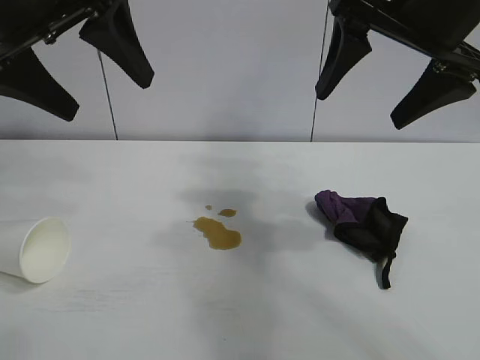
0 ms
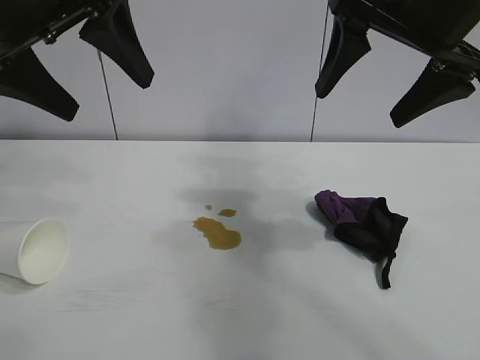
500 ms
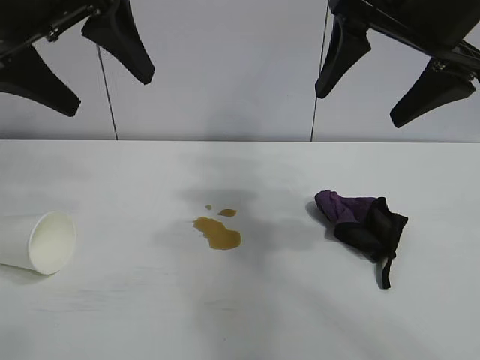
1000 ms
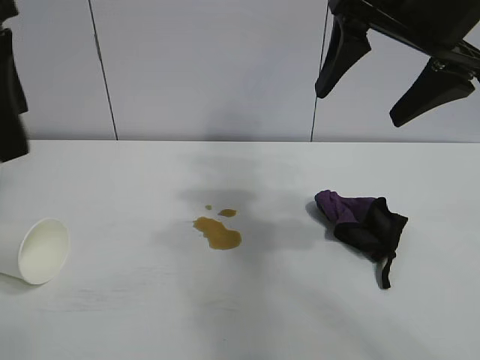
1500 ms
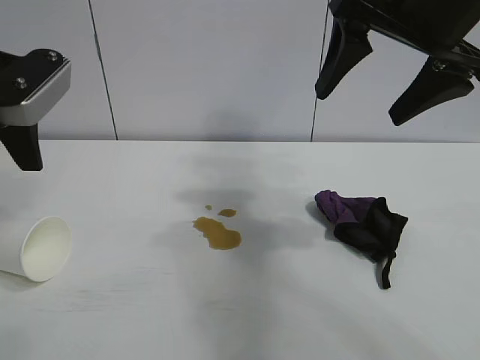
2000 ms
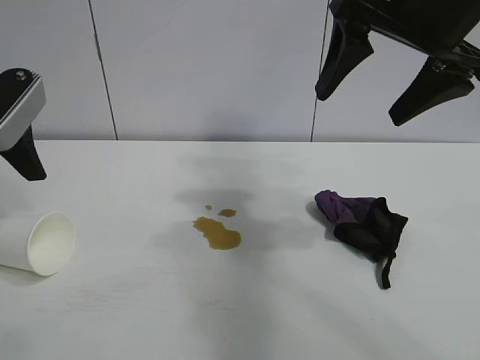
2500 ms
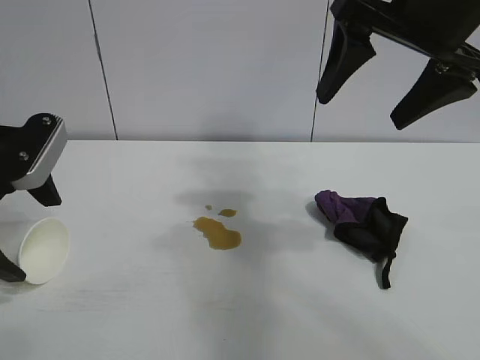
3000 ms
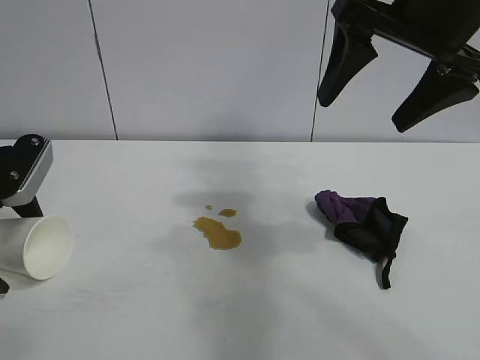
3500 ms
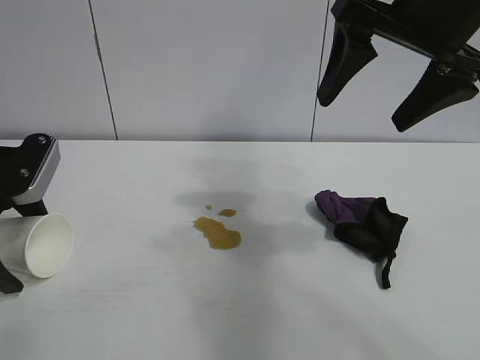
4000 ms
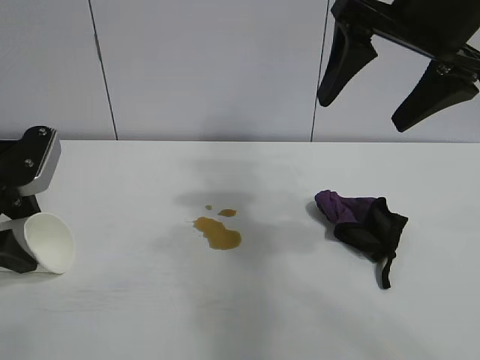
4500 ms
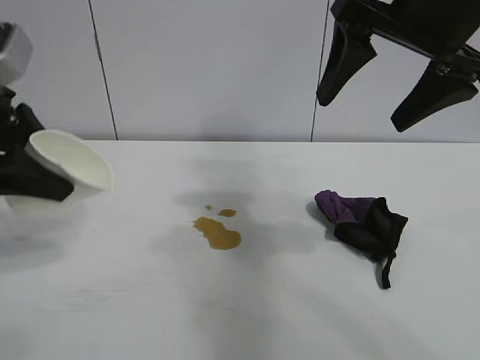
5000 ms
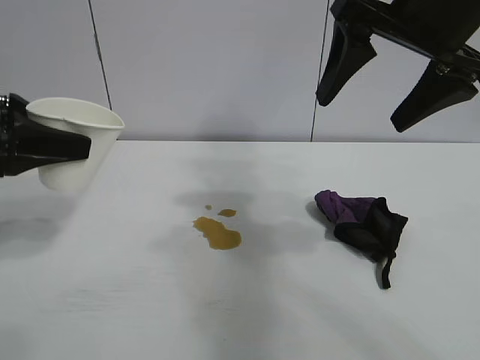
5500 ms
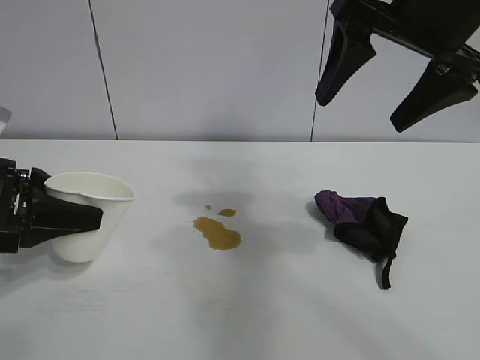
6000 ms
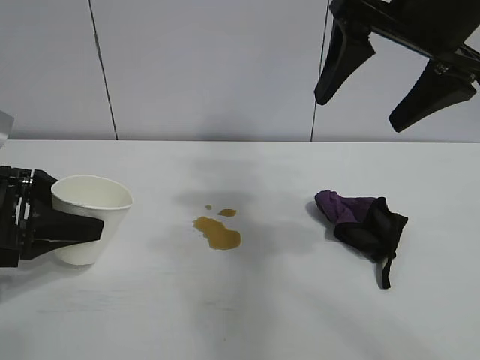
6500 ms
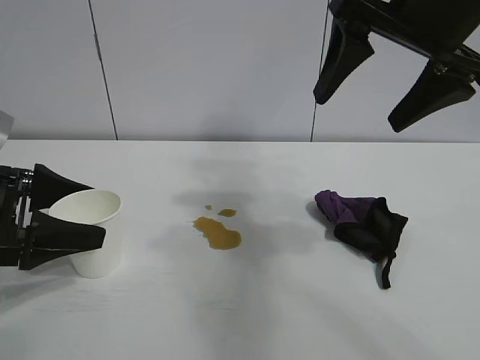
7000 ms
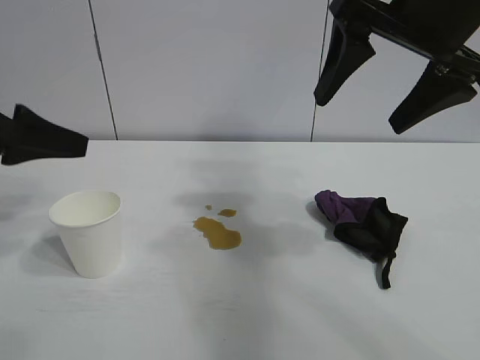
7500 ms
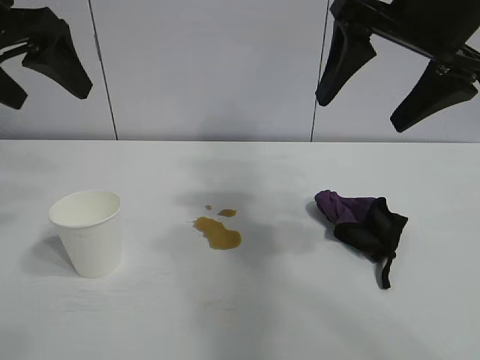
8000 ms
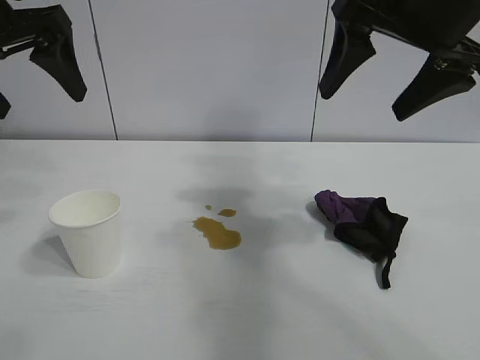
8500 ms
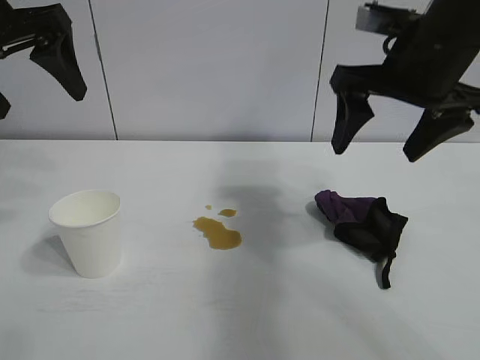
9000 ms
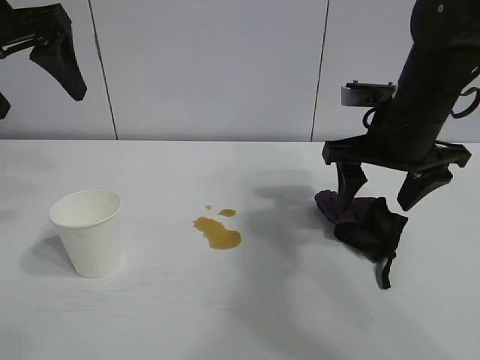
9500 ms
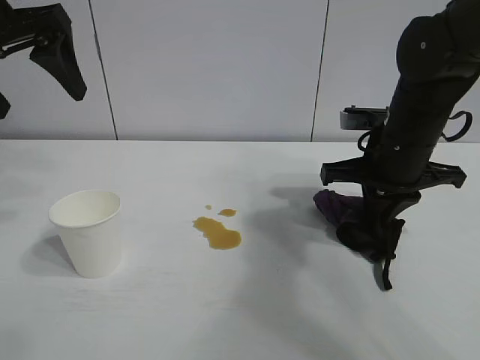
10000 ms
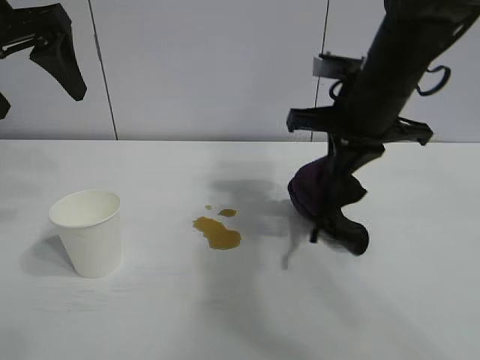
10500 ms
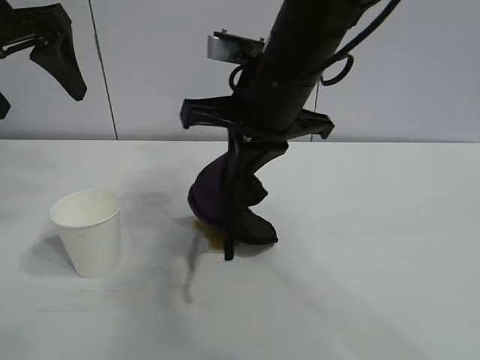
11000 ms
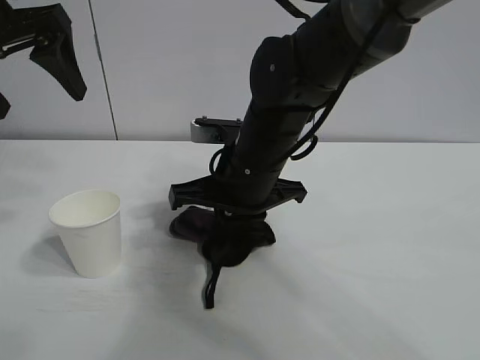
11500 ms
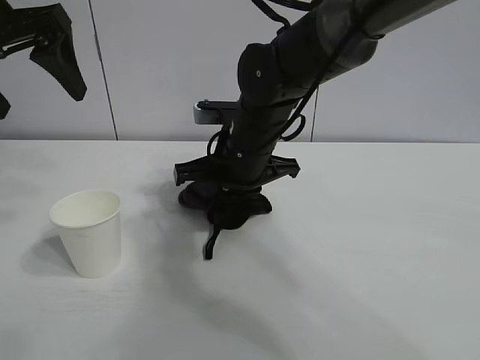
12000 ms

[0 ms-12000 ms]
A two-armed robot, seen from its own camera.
Task of the whole recording: the left gripper pick up the fallen cup and place it upright, the right gripper grasp the black rag and wipe the stain on the table, the right gripper put the black rag back in its original position.
Step, 1000 ms to 4500 ms: Grasp the paper cup with left gripper.
Step, 5000 ms to 6500 ms: Stand the paper cup upright with left gripper.
Step, 7000 ms to 10000 ms: Grasp the rag with right gripper.

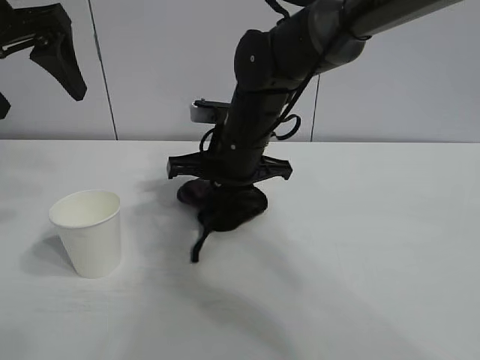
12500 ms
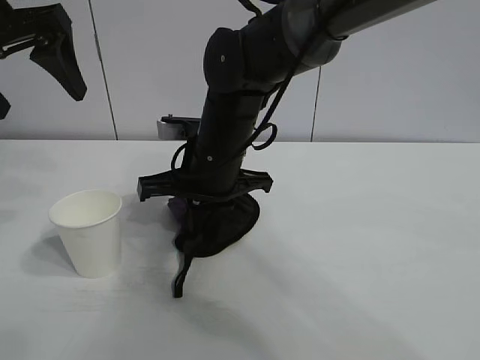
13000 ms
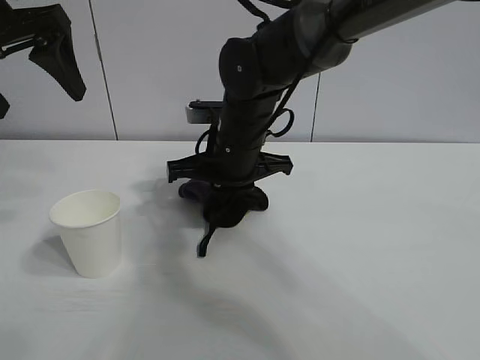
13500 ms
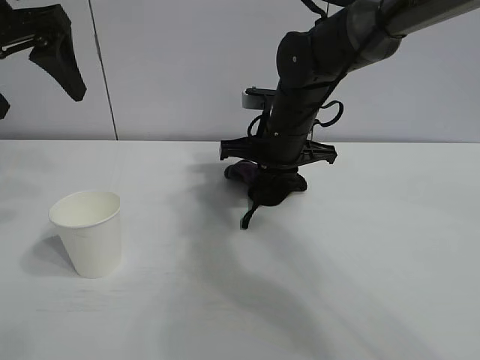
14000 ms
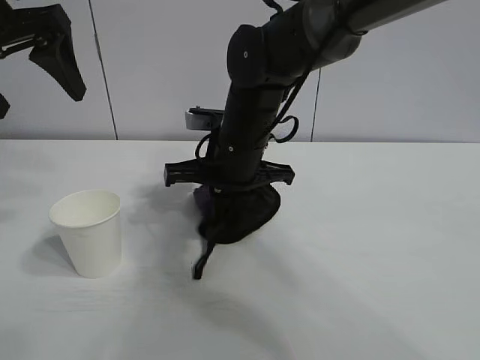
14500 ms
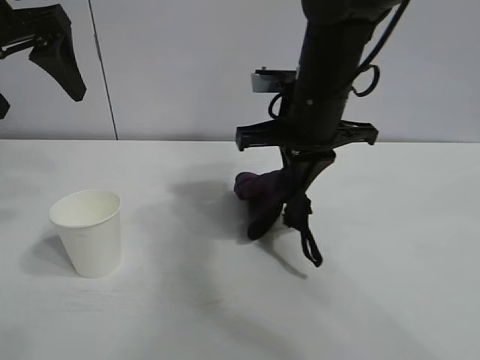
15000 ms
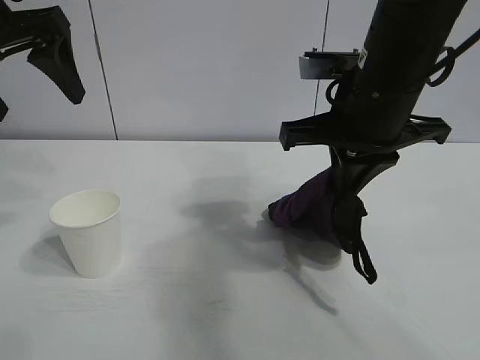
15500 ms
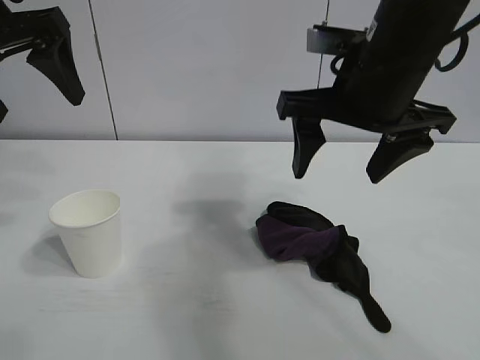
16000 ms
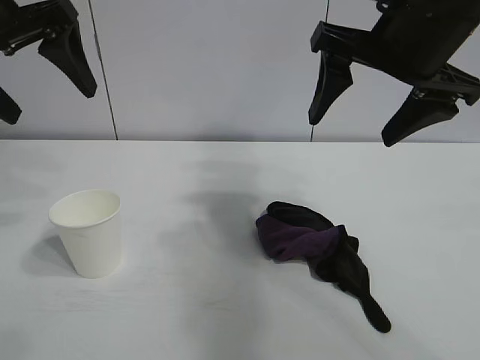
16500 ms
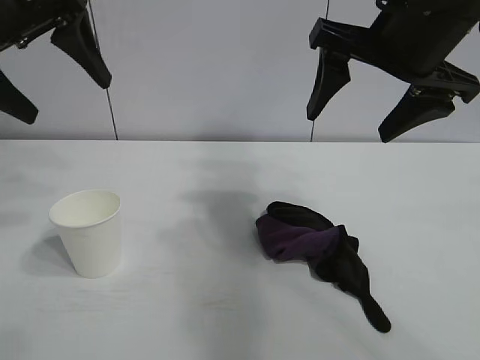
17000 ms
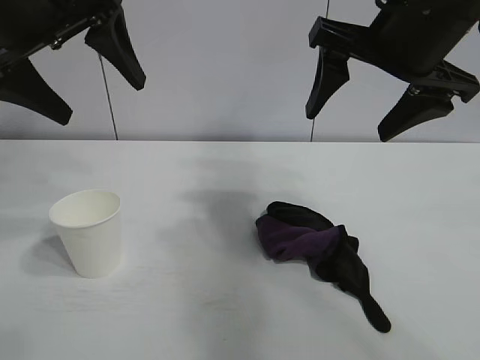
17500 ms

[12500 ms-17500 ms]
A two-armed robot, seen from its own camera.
Task of the whole recording: the left gripper pick up the fallen cup and place it upright, the right gripper grasp the black rag and wipe the stain on the table, the right gripper put the black rag back in its original position.
Step, 15000 ms to 15500 ms: Place the rag on the table with right gripper.

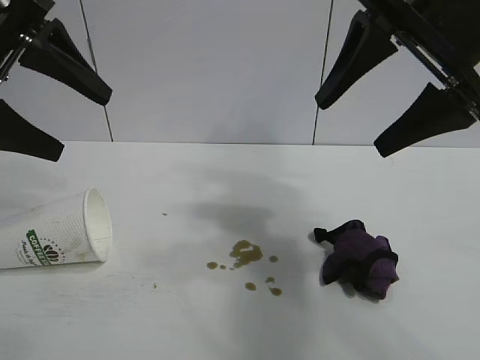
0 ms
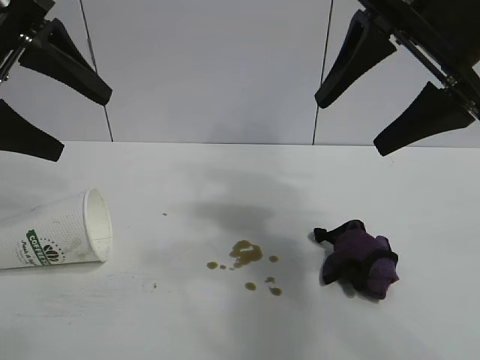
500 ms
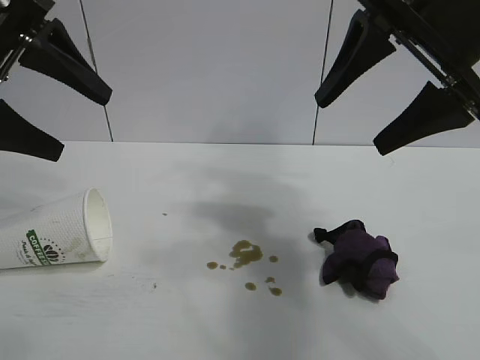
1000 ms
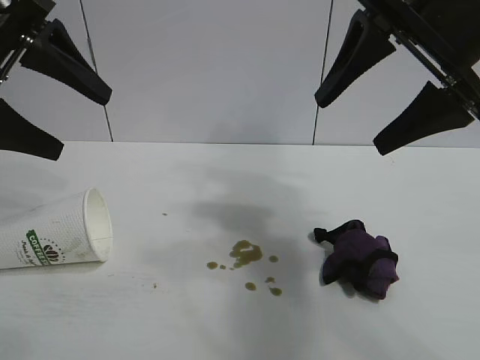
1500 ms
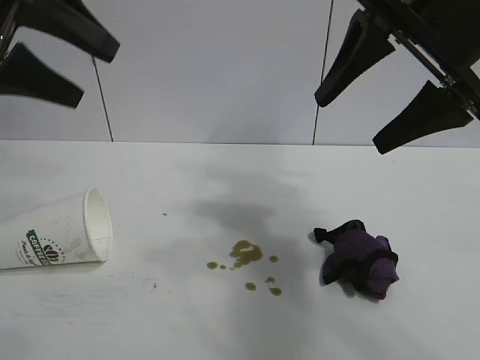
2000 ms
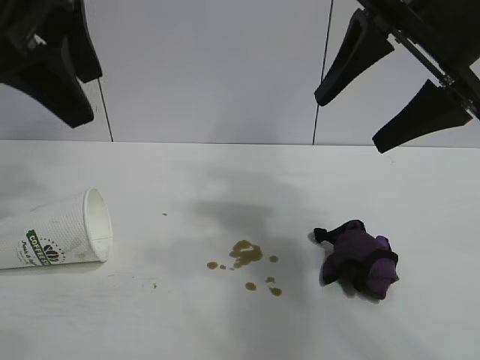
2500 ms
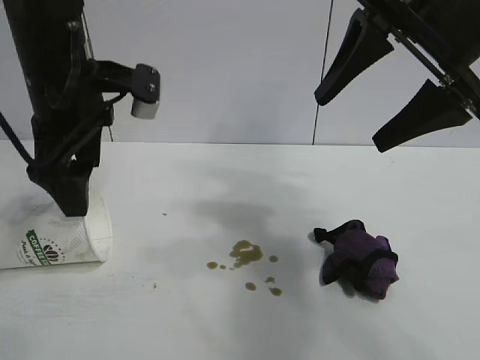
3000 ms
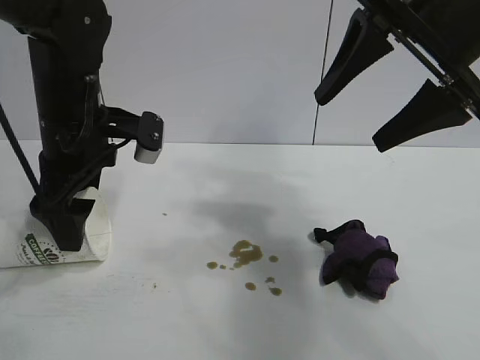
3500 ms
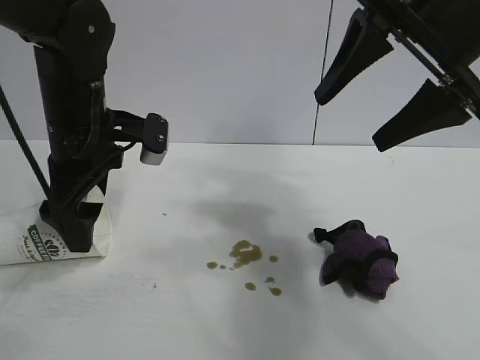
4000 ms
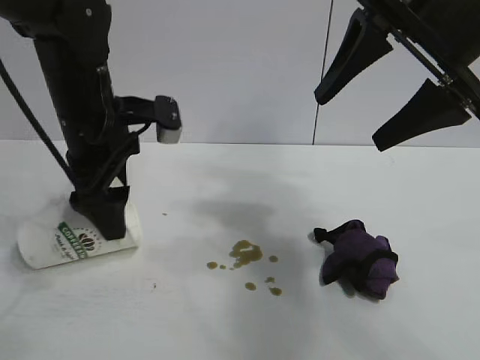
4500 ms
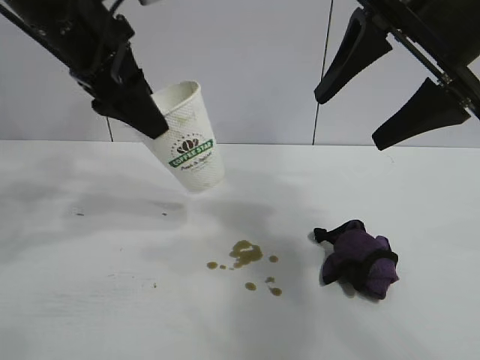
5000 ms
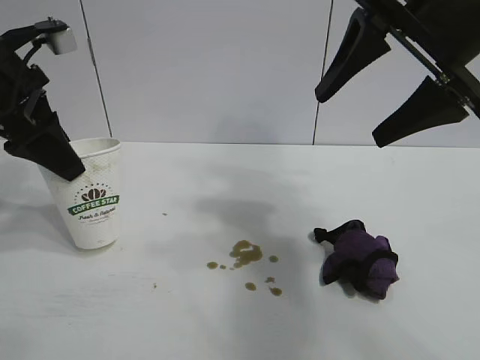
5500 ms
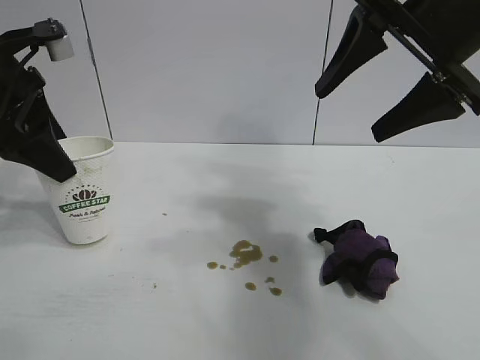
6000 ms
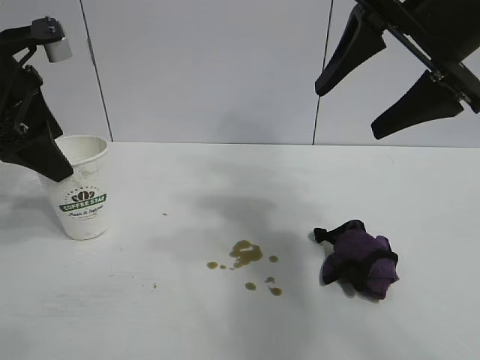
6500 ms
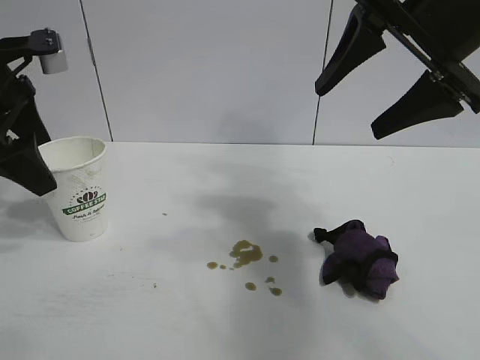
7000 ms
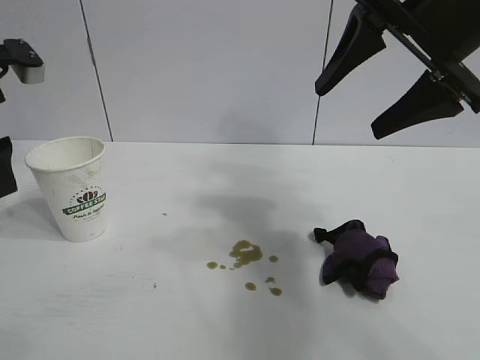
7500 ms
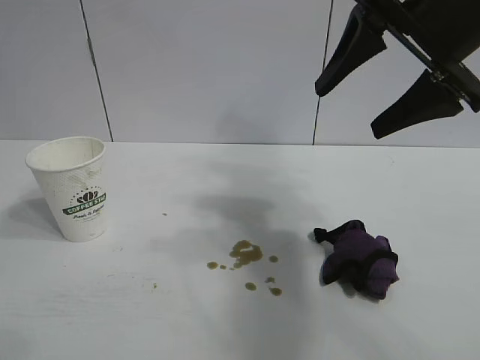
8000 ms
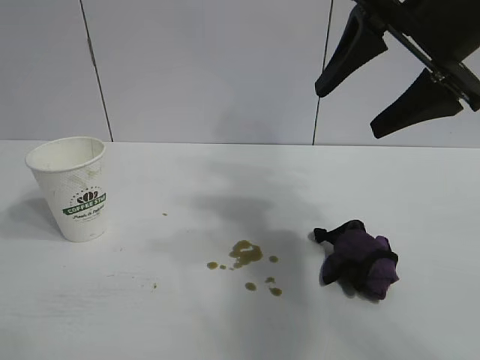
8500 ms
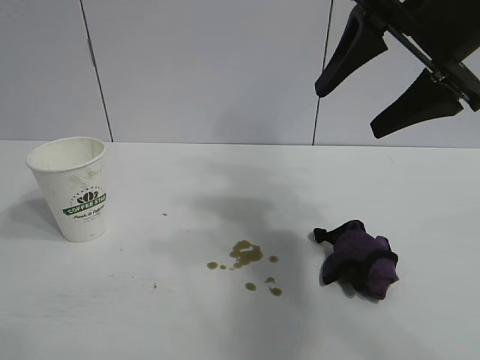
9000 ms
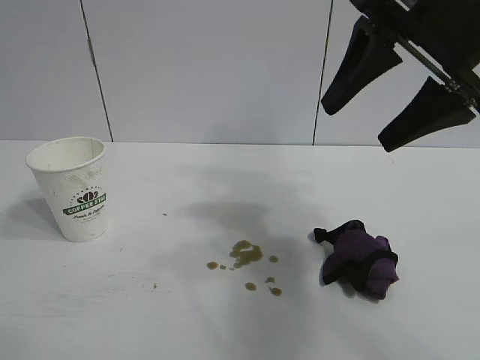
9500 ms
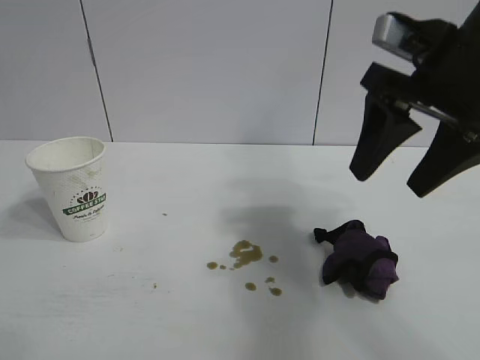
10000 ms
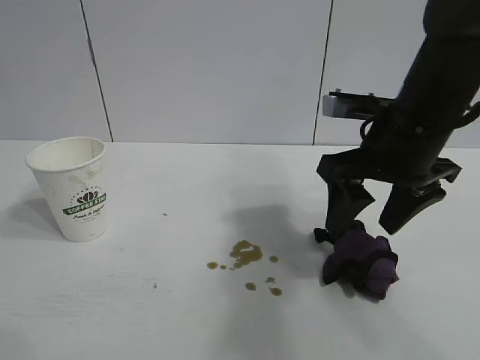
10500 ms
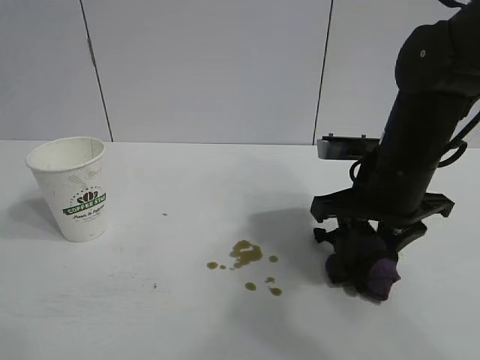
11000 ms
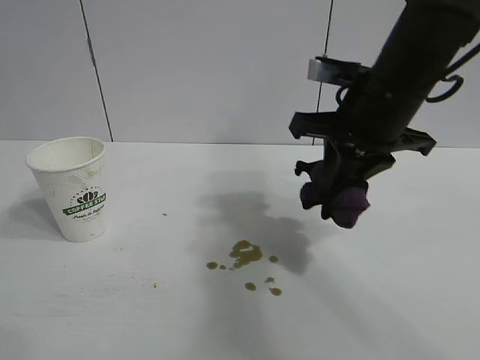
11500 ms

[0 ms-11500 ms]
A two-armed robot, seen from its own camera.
Task of the whole recording: the left gripper pick up the fallen cup and place it upright, the right gripper grasp the black rag and wipe the stain on the table, the right gripper put the black rag back in its original position.
Step, 1500 ms to 4000 ms: Grasp the paper cup with left gripper.
Step, 4500 ms to 6500 ms: Stand the paper cup upright with left gripper.
Step, 7000 ms to 11000 ms: Grasp the rag with right gripper.
